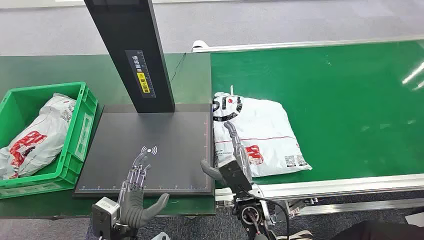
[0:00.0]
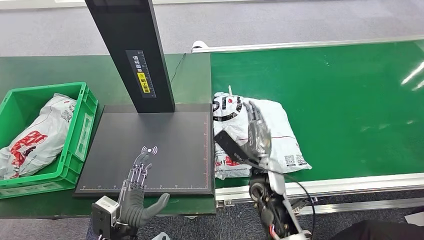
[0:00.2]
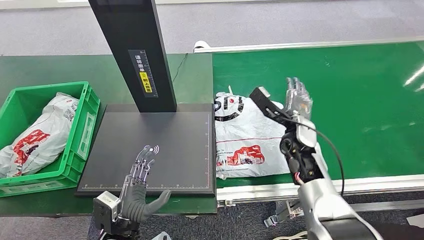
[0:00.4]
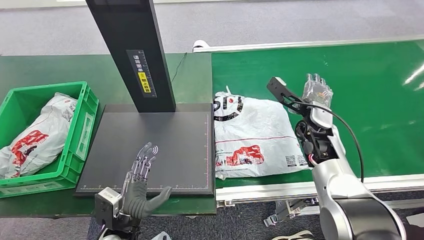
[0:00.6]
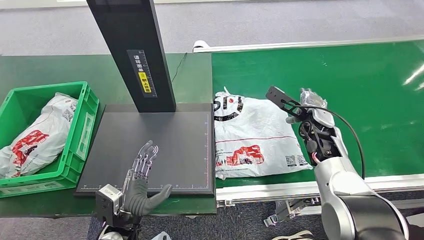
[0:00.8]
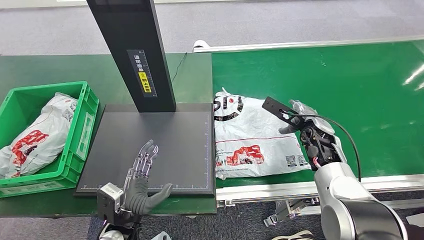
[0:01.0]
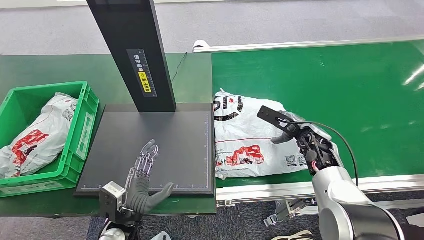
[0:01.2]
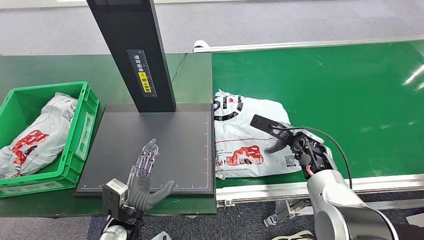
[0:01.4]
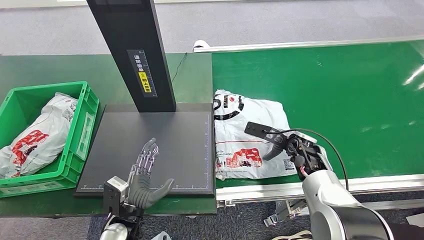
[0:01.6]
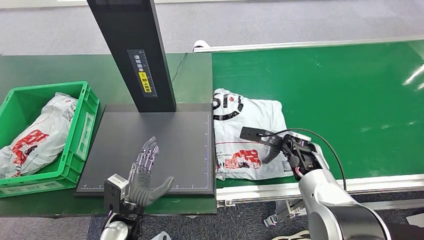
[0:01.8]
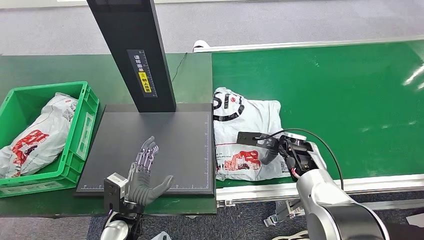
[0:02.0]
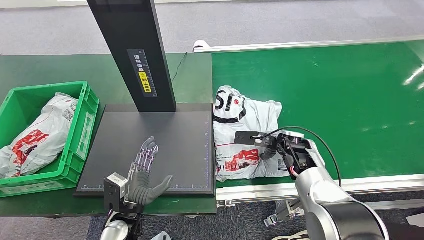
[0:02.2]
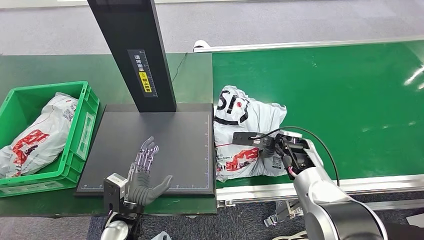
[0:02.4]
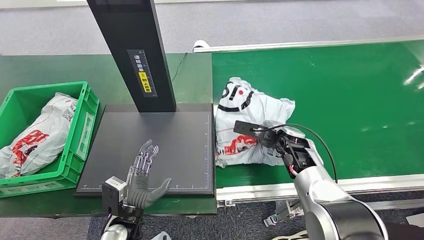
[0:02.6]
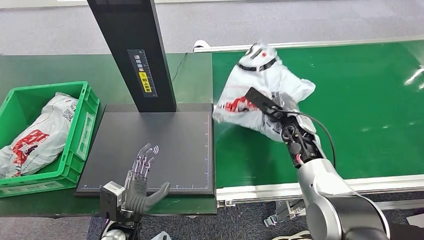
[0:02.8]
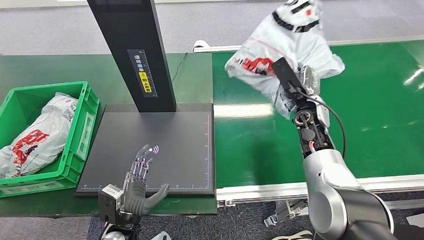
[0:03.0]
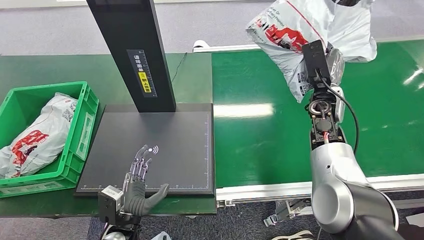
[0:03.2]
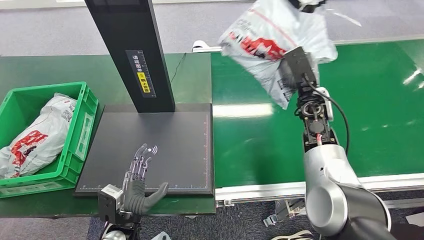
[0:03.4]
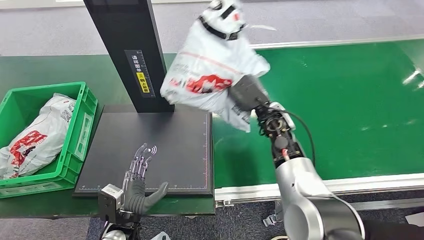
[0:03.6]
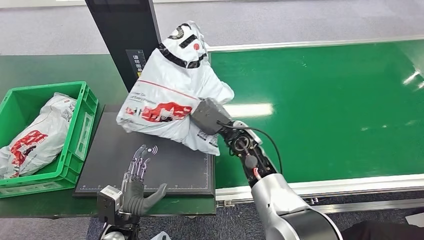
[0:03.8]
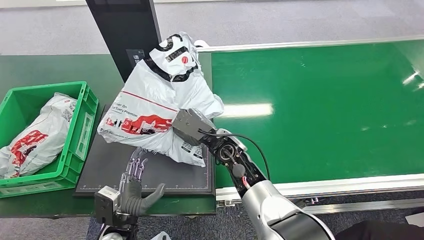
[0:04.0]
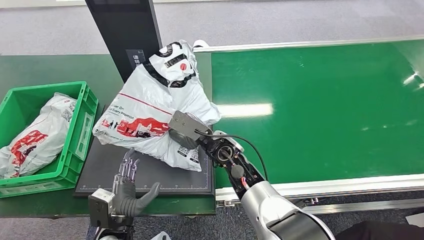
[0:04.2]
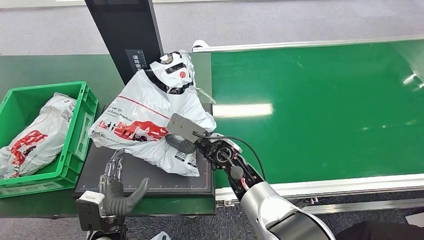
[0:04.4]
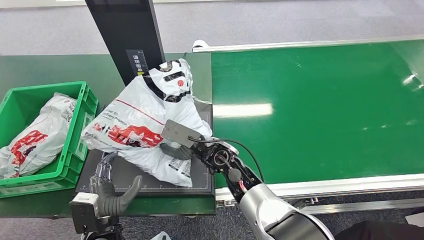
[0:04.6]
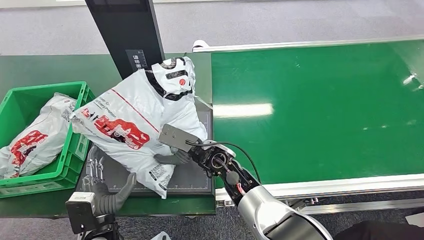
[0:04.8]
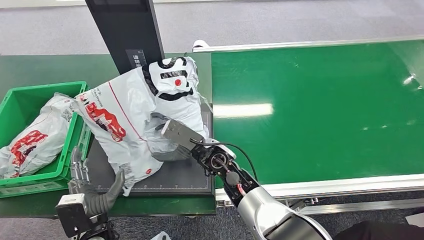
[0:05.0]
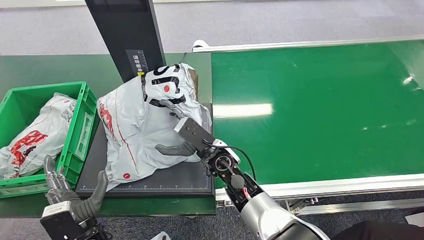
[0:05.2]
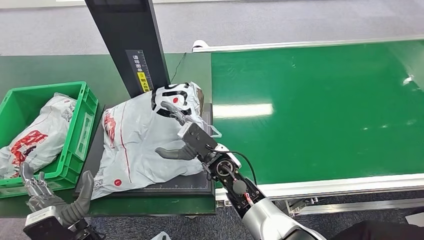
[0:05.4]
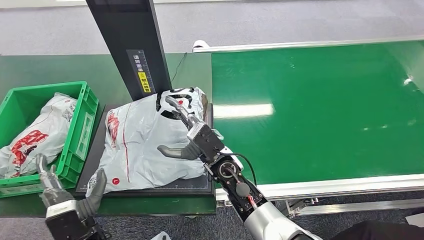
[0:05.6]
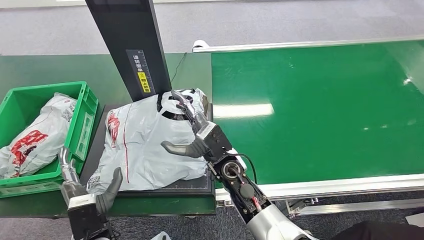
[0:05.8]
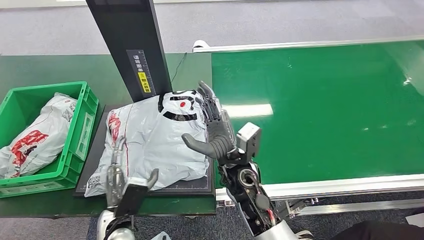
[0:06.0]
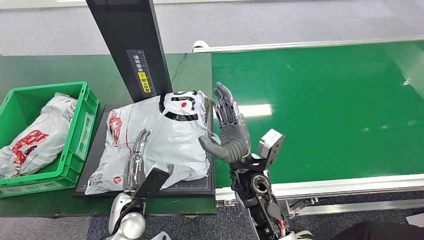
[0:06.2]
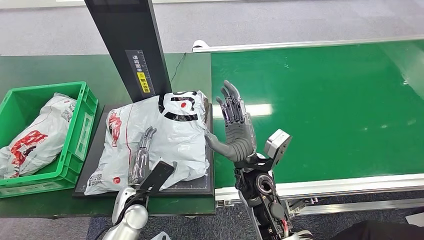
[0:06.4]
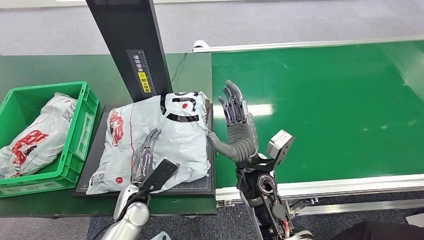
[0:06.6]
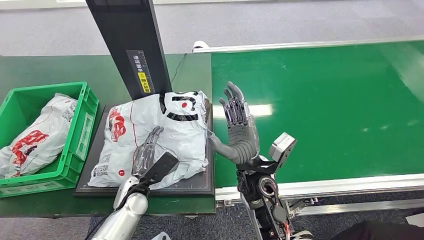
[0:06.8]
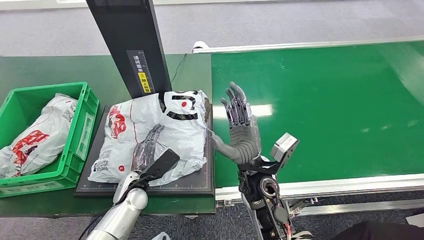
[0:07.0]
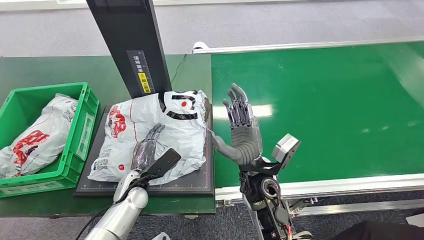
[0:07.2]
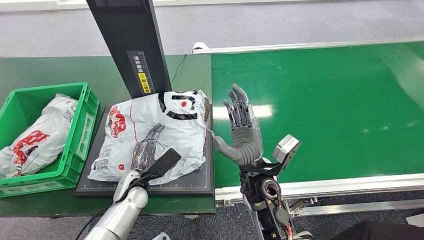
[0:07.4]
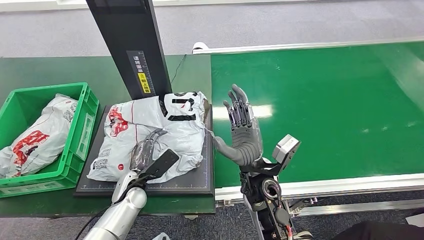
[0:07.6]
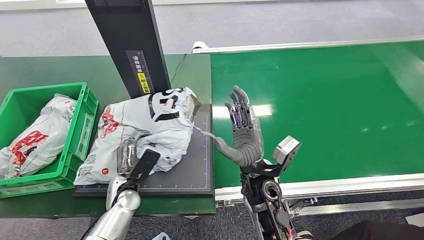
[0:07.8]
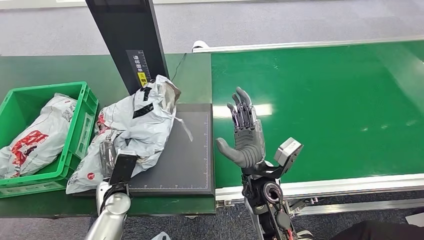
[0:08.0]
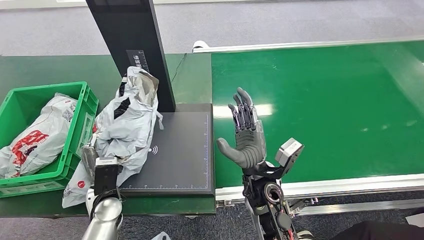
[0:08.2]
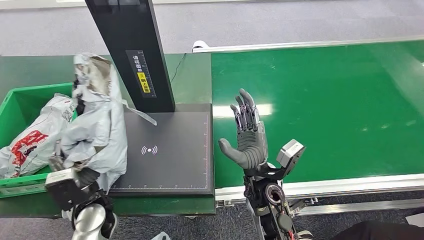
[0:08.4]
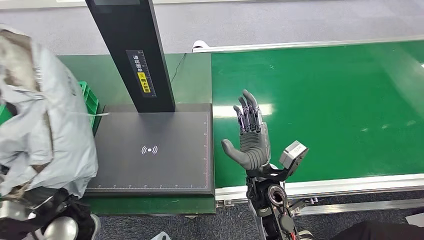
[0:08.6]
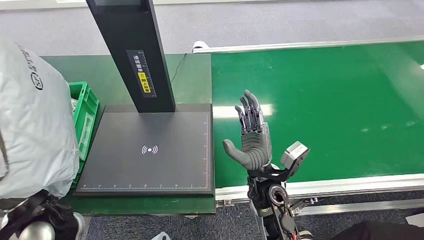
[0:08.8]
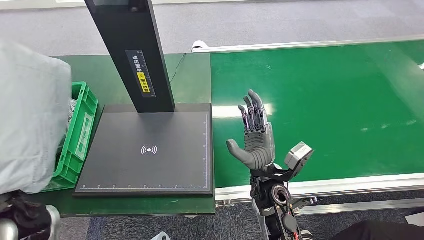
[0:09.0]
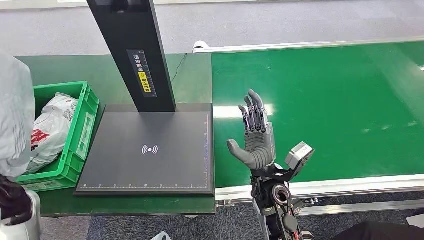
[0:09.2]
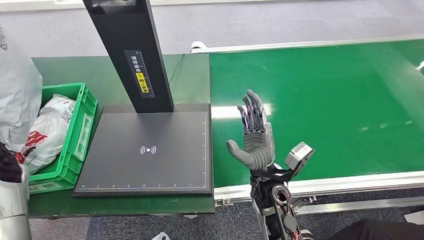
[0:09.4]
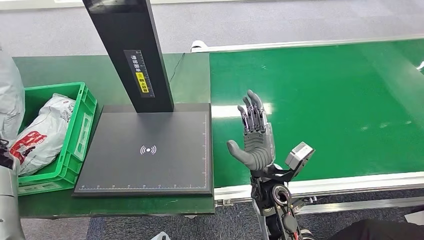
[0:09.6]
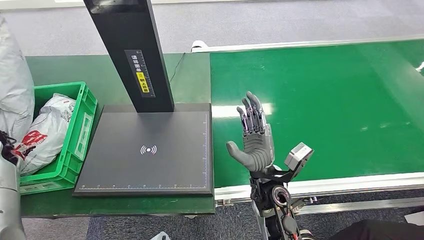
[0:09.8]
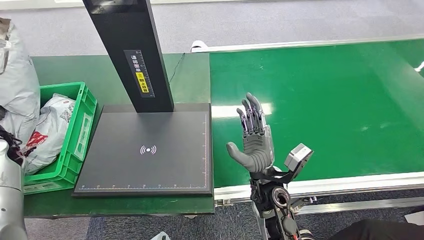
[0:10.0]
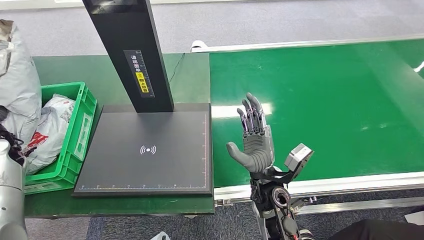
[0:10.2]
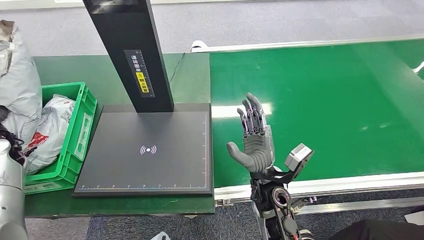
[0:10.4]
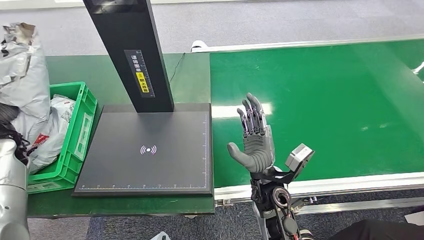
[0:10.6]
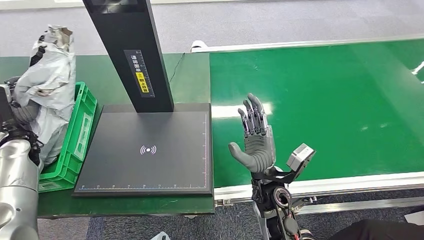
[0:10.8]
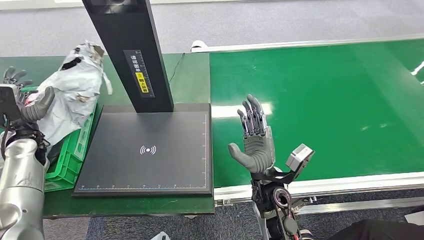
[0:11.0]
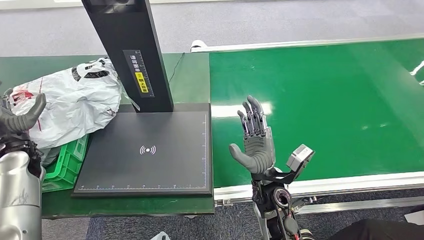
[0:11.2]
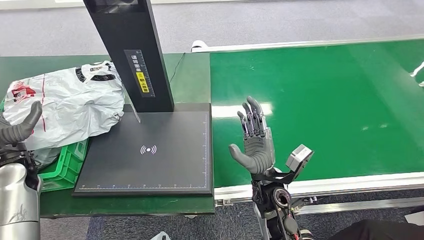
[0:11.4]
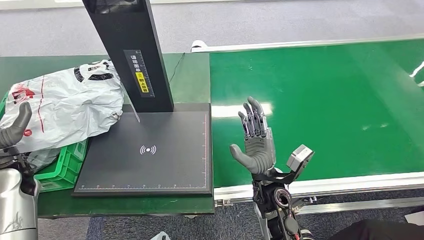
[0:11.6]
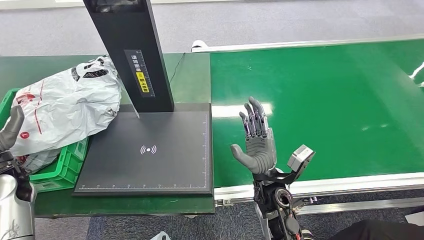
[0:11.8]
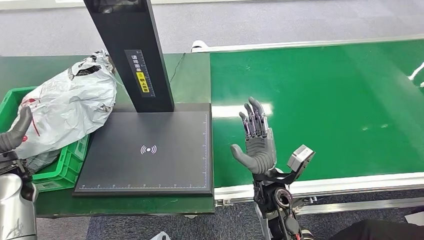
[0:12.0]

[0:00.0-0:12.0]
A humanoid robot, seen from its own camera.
Step, 0:00.0 to 0:03.0: Pick up the package from the conveyor belt.
Step, 0:03.2 to 0:06.6: Place the package onto the inbound machine.
Step, 0:06.8 to 0:08.4: Pick up the package from the inbound machine.
0:09.0 to 0:10.4: The left hand shifts about 20 cm to the left and forward.
0:10.4 to 0:12.0: The left hand is displaced backward and to the right by some 10 cm.

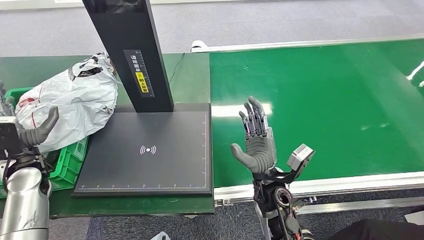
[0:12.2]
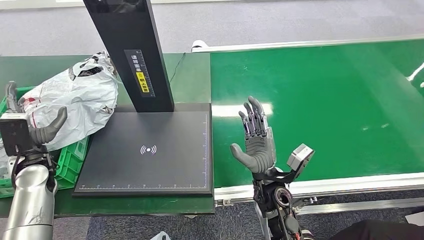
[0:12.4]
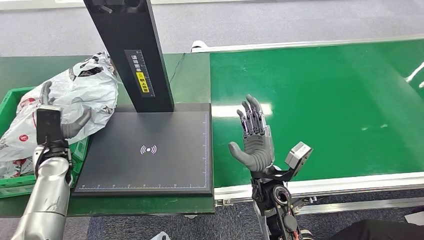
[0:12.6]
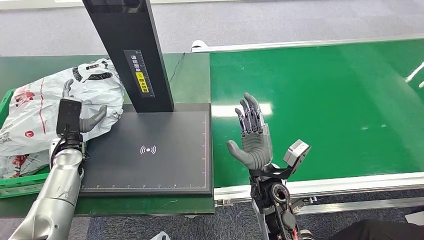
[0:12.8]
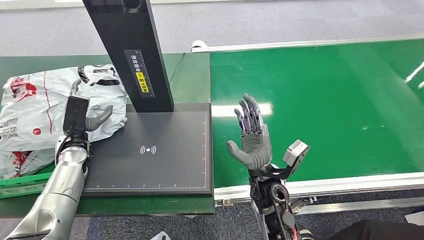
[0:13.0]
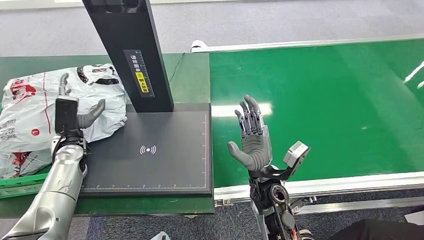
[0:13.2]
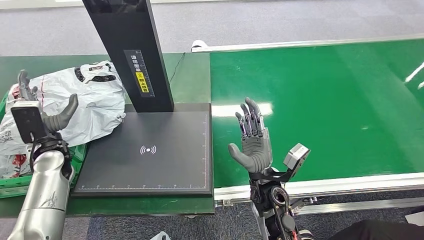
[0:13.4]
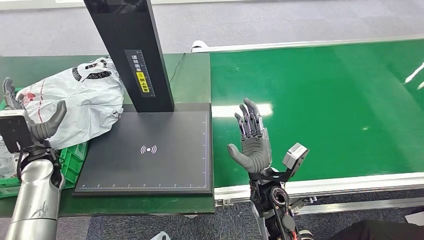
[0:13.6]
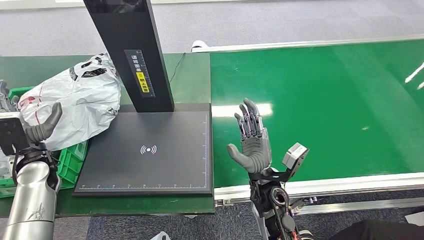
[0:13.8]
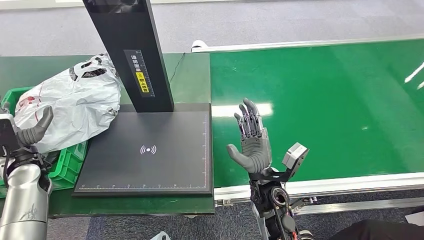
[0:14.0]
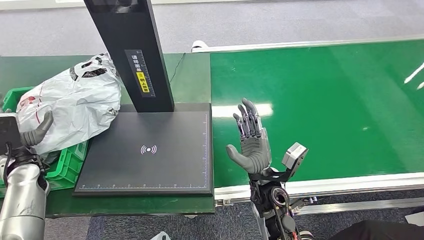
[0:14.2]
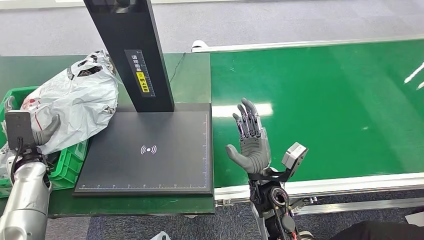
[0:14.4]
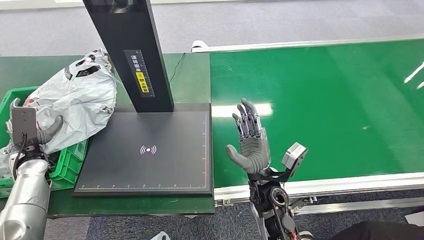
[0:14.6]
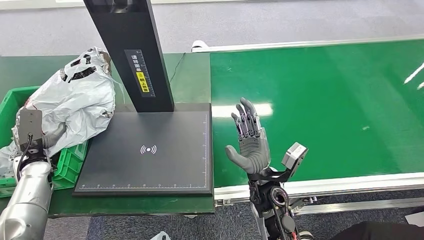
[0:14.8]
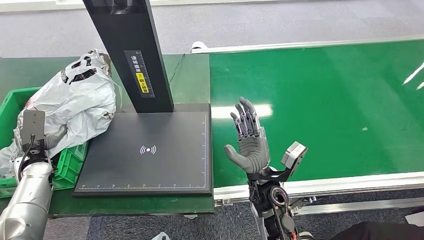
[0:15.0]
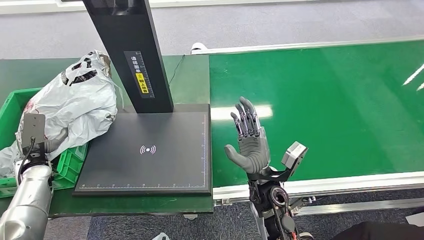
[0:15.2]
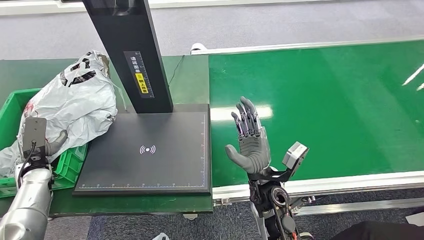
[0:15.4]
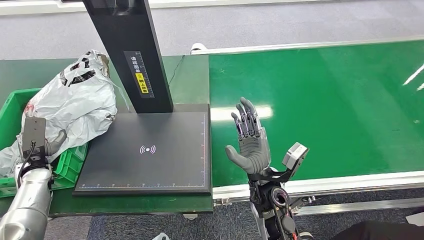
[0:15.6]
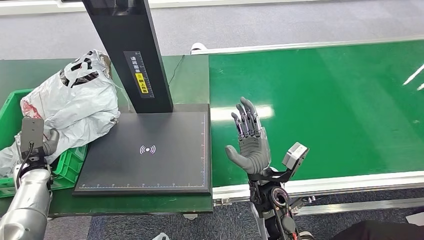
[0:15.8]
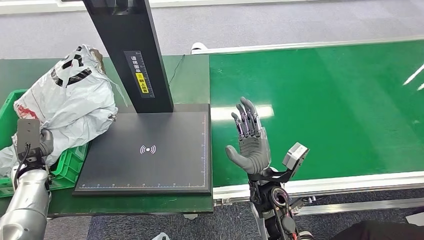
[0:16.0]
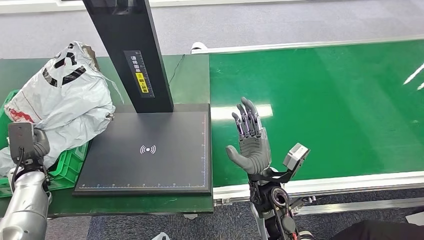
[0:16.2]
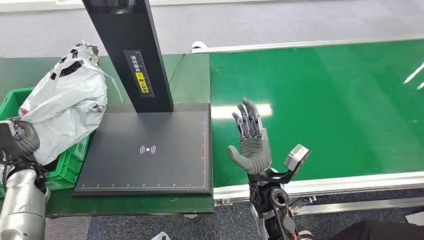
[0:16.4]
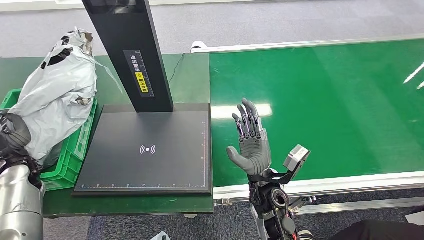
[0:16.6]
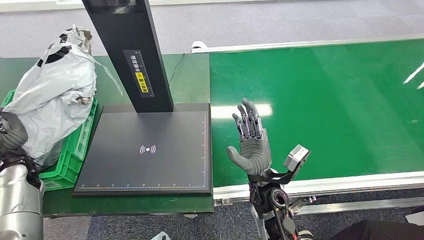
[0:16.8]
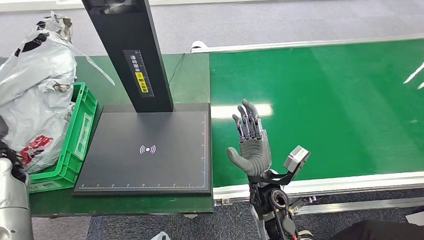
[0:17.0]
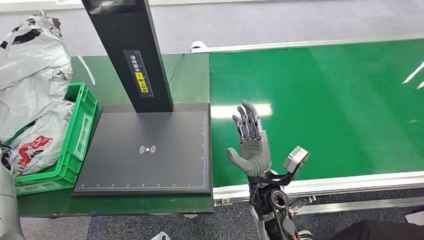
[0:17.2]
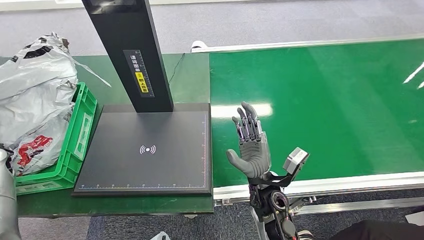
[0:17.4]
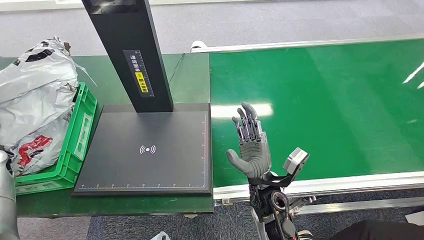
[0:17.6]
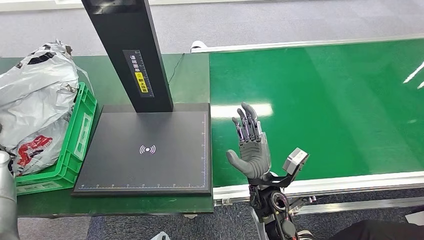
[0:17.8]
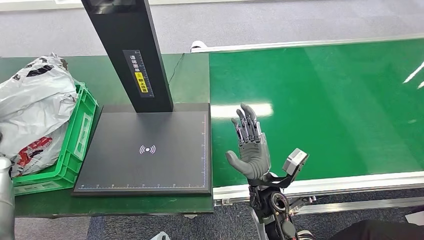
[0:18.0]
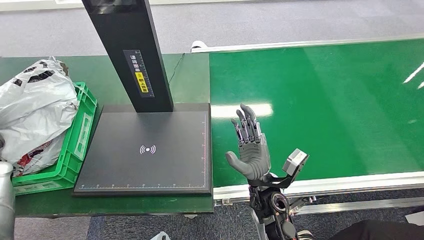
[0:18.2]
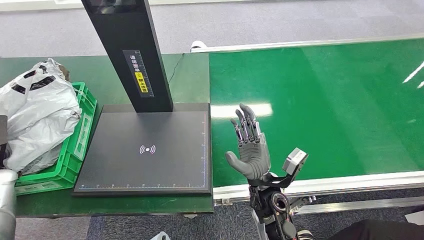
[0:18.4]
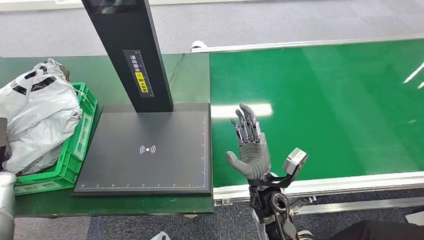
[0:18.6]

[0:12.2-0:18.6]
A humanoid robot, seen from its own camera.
0:13.8 to 0:15.4: The left hand shifts approximately 5 cm downward.
0:17.0 to 0:18.6: The left hand changes place by approximately 5 cm.
